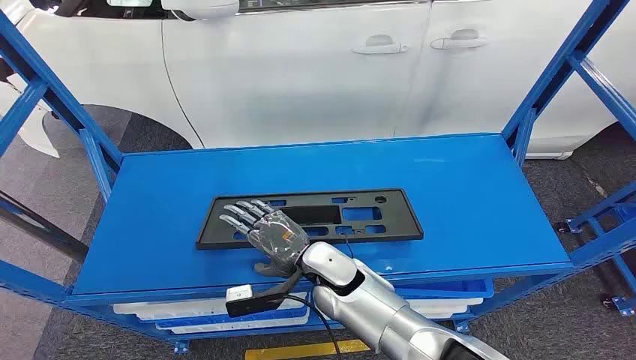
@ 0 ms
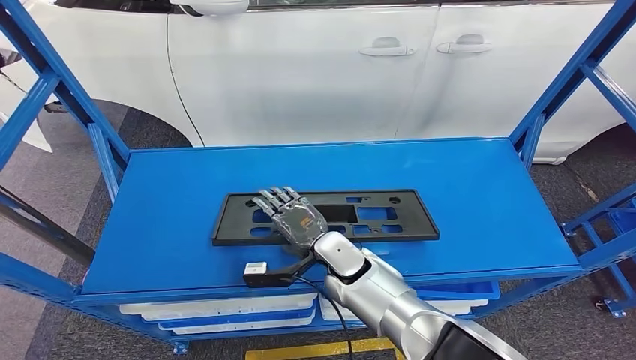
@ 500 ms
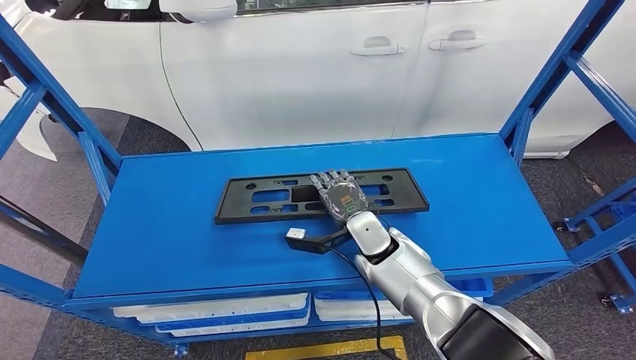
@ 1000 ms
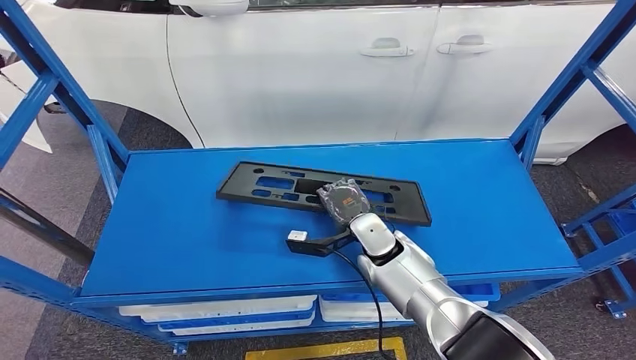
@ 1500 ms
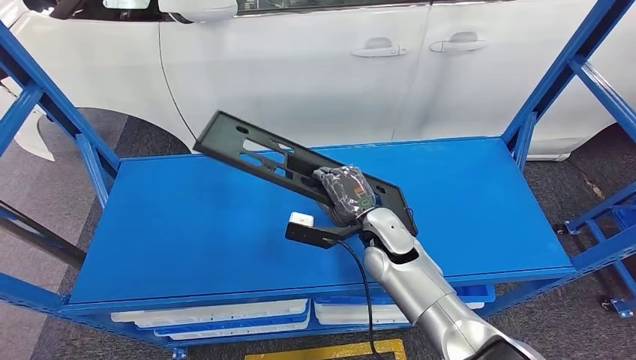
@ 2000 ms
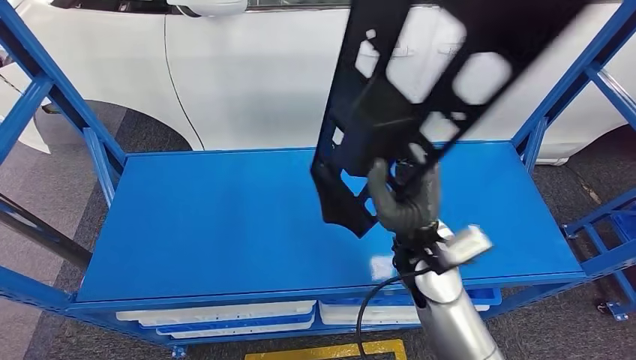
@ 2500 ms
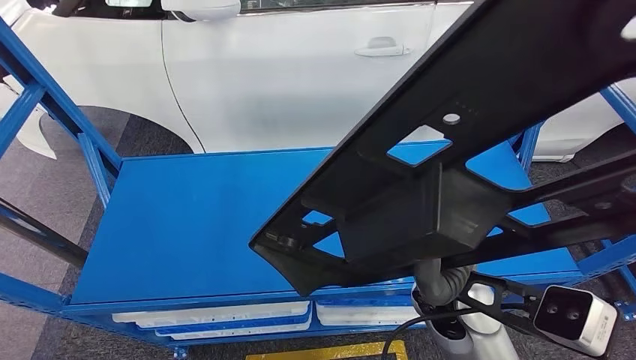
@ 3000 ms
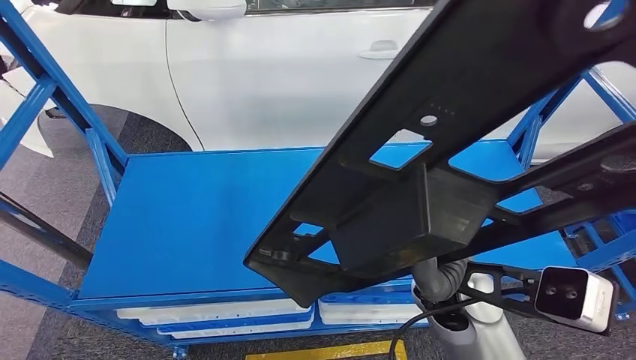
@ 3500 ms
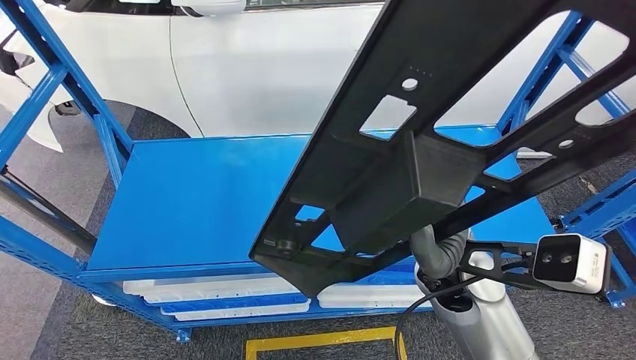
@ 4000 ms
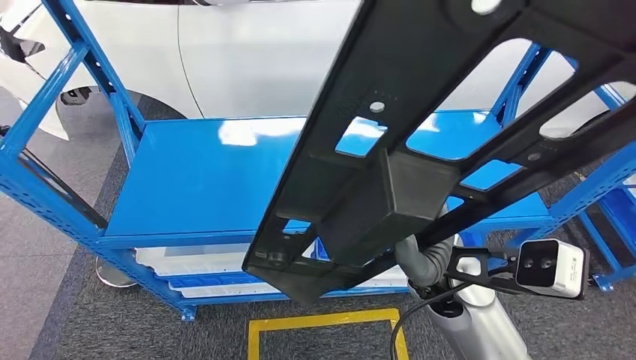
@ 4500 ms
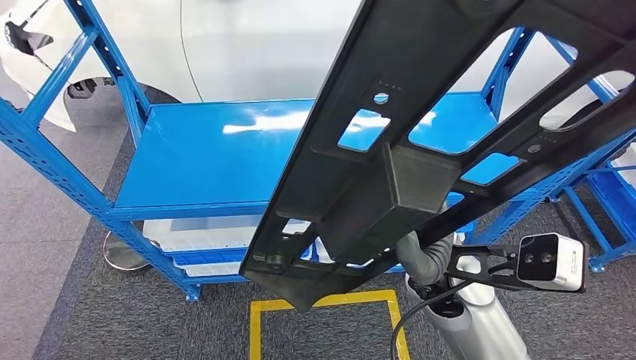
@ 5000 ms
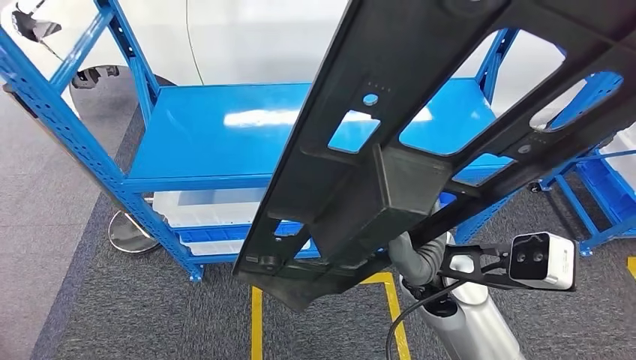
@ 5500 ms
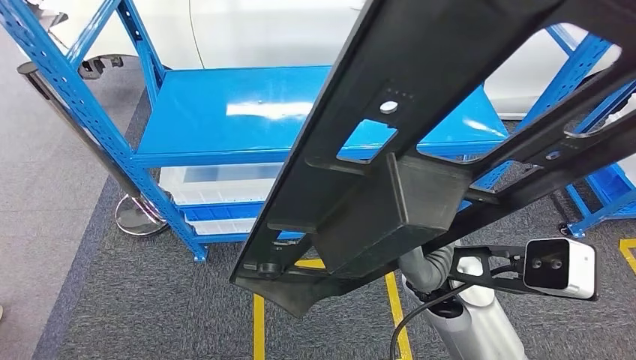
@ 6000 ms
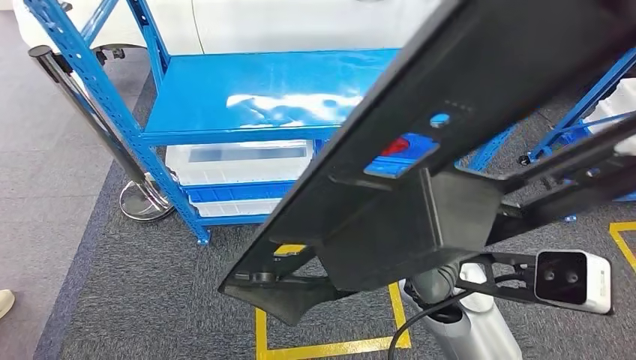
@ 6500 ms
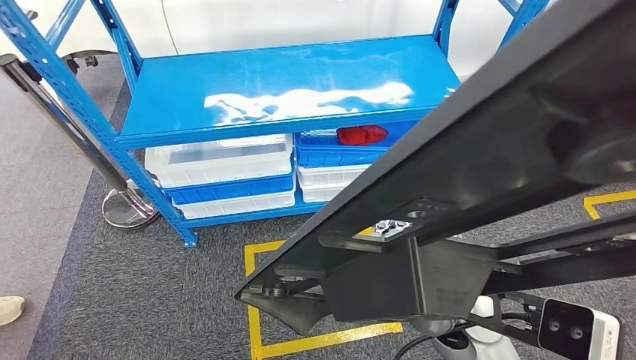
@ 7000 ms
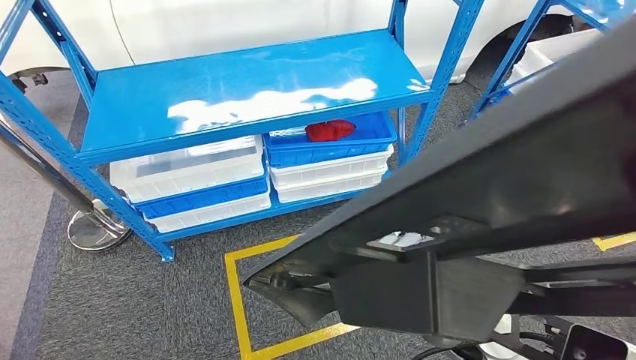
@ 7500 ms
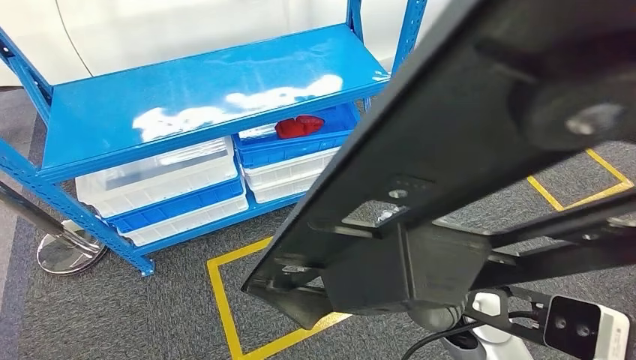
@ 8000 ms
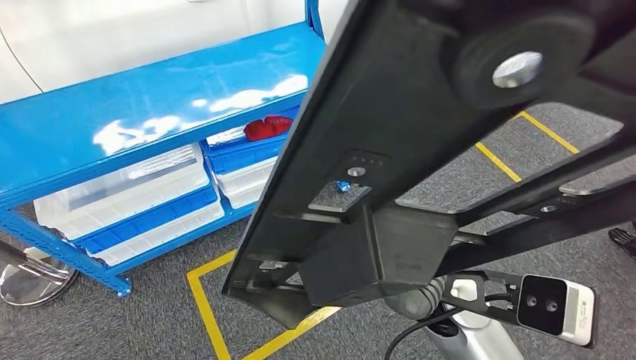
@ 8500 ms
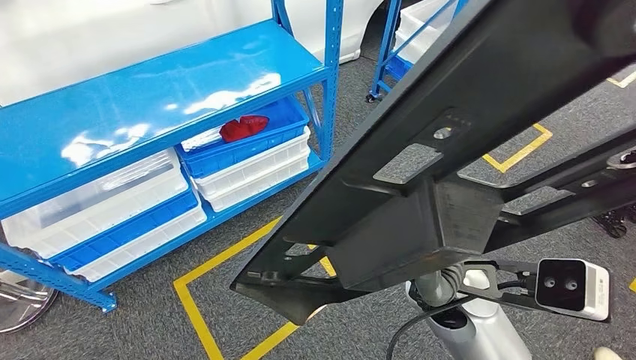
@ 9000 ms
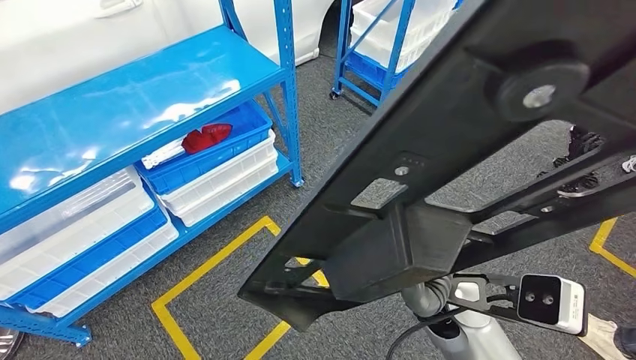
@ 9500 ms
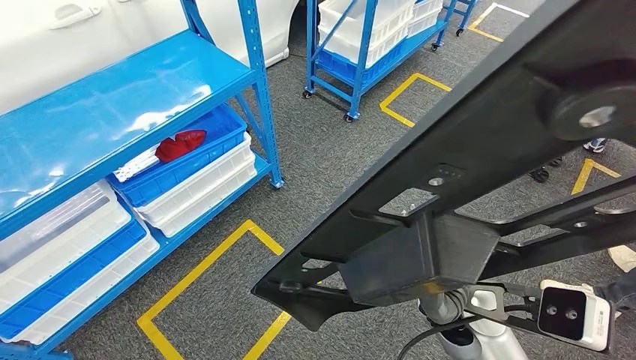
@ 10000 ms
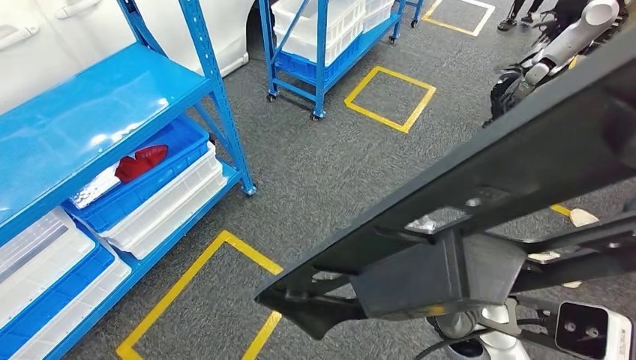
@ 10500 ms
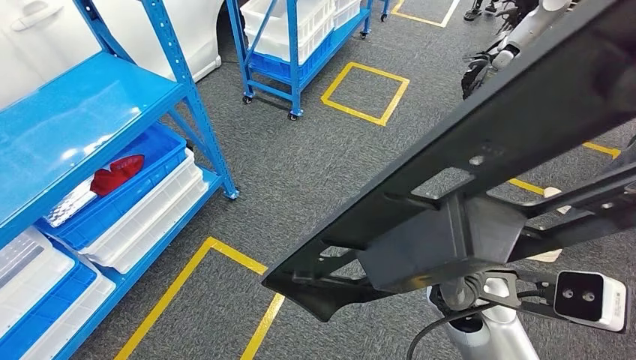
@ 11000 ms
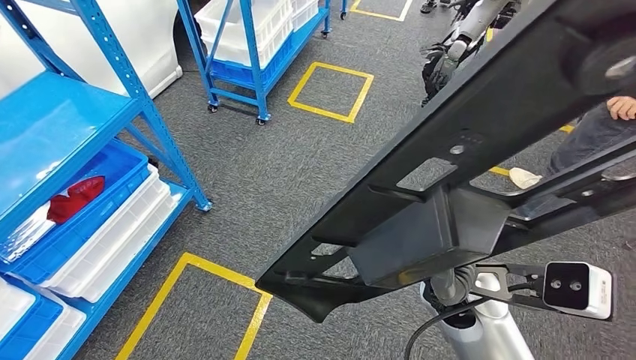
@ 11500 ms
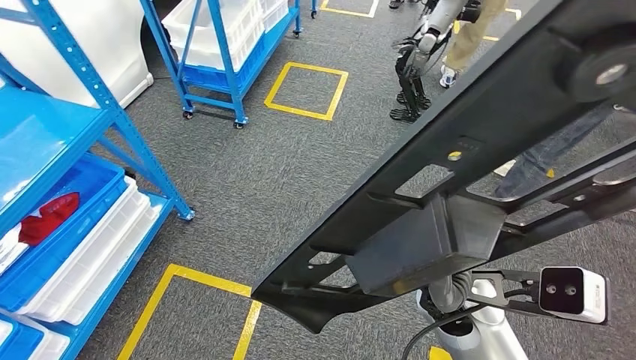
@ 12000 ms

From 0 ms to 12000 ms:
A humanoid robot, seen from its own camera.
Step, from 0 ms to 3000 ms: Pick up the small component from the shelf.

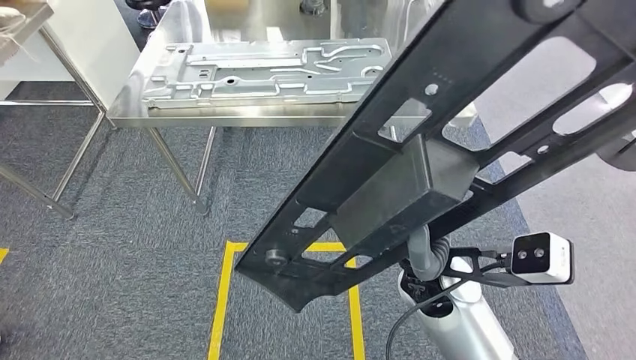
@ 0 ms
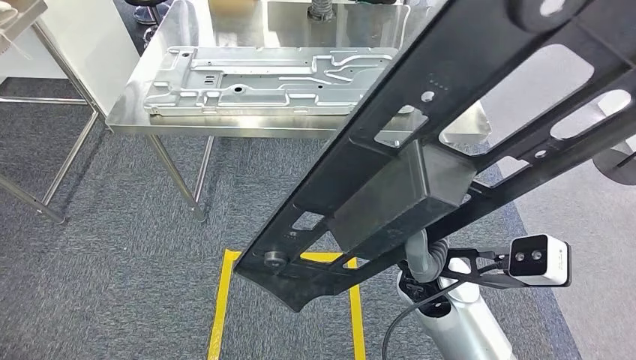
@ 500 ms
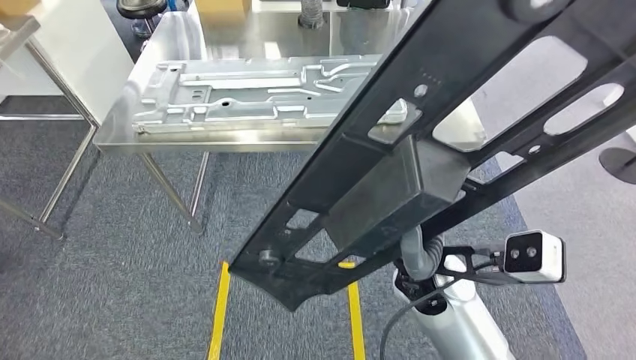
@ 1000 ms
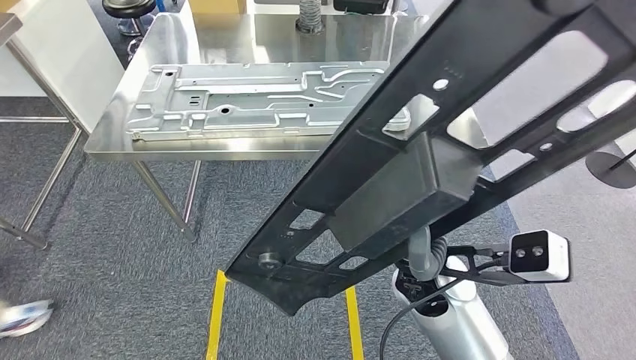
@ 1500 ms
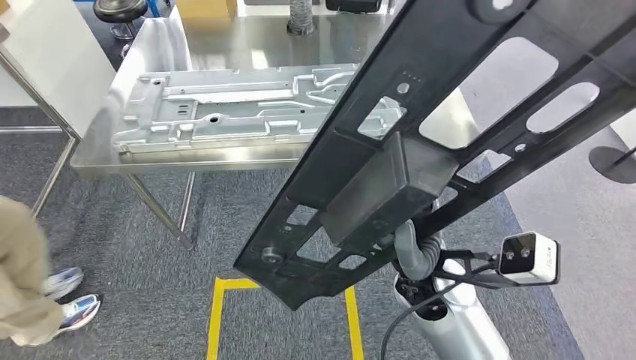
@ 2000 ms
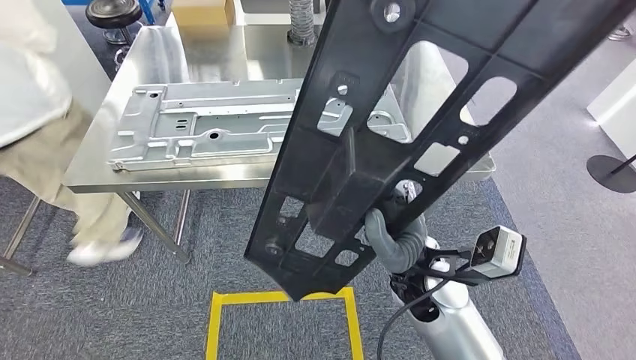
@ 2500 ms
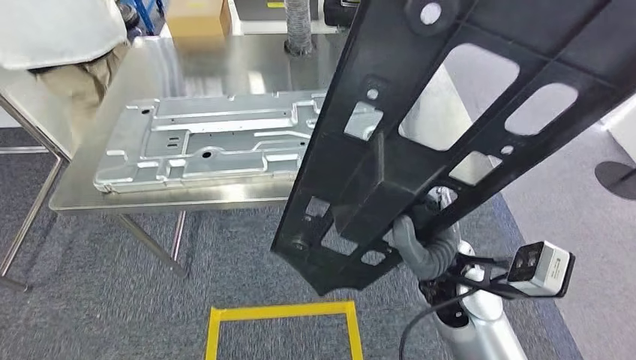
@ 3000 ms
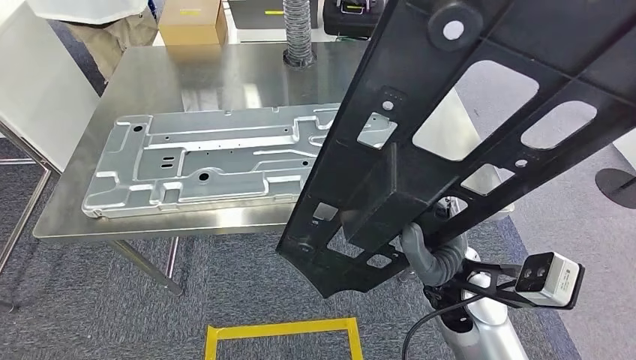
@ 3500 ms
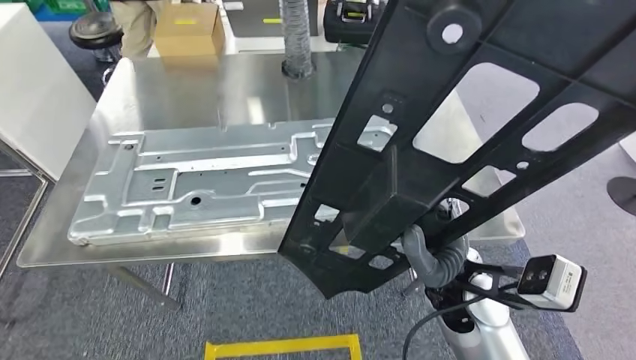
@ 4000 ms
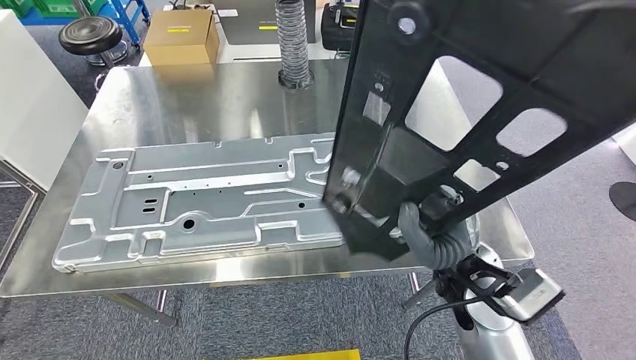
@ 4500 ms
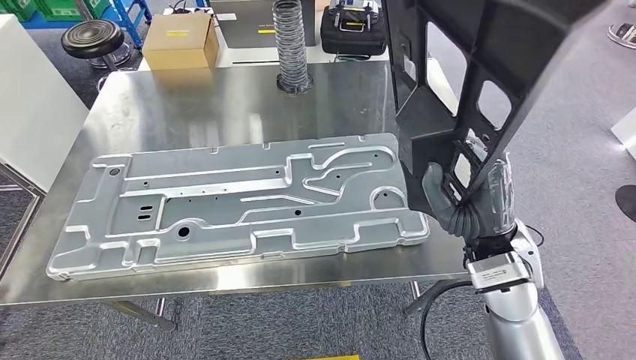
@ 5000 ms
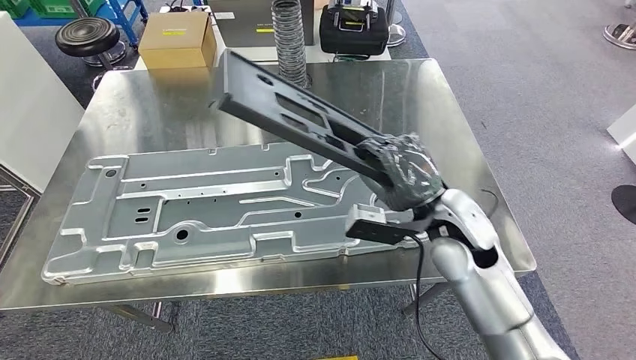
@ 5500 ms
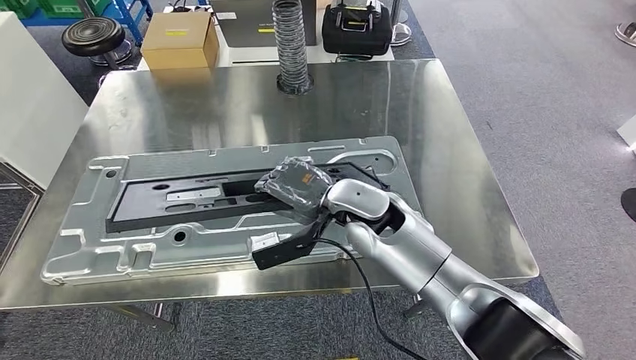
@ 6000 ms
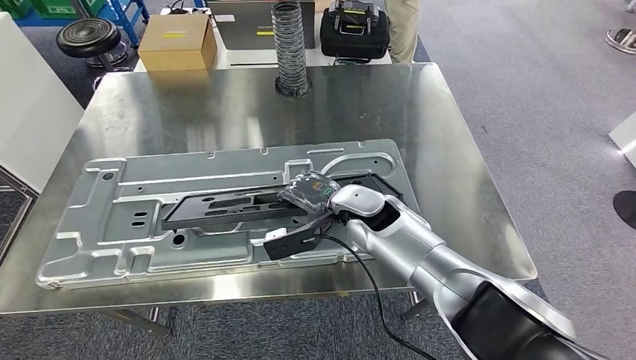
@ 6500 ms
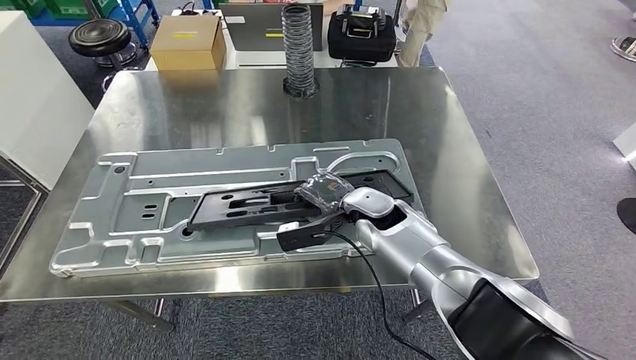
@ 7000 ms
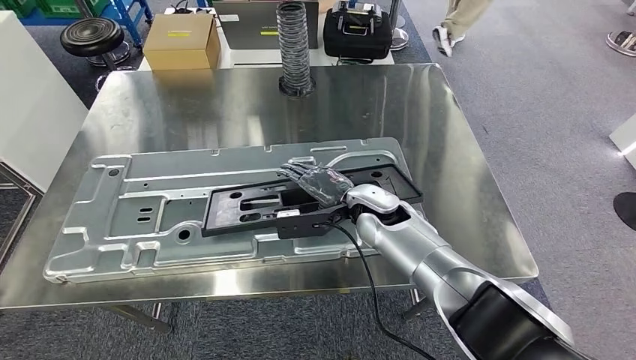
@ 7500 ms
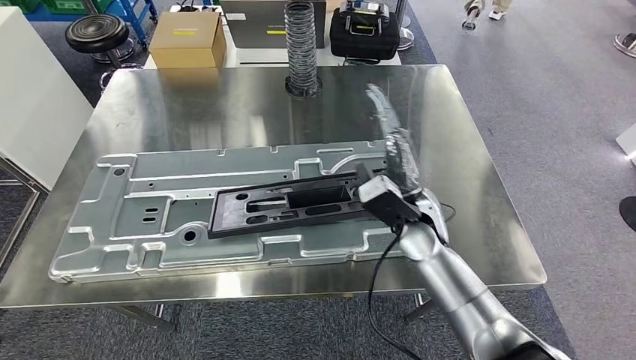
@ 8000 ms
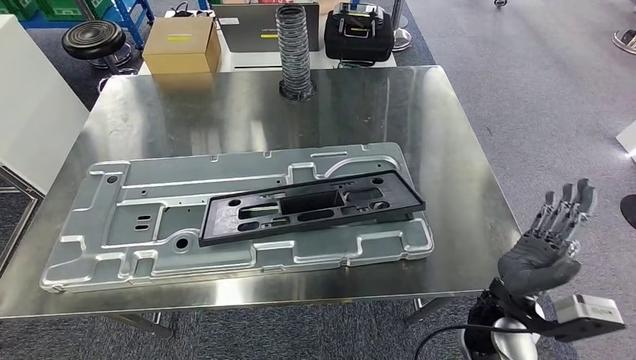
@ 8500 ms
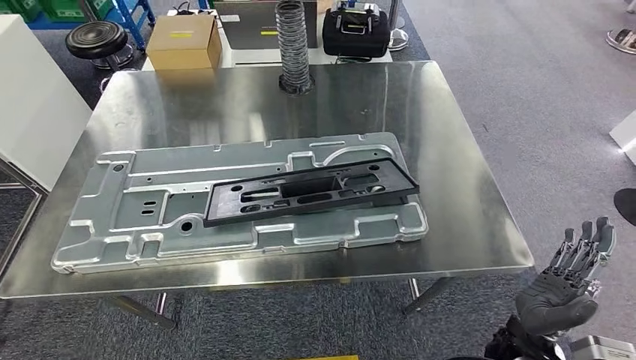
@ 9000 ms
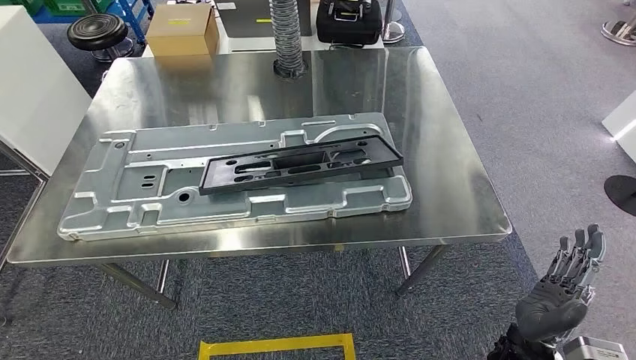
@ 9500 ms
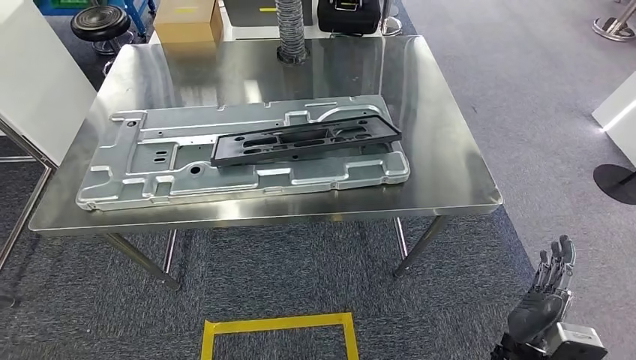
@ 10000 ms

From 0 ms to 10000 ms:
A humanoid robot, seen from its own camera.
Step, from 0 ms to 4000 ms: Move the small component to the workbench.
Step, from 5000 ms to 8500 ms: Insert the small component into the corresponding slot on the workbench.
